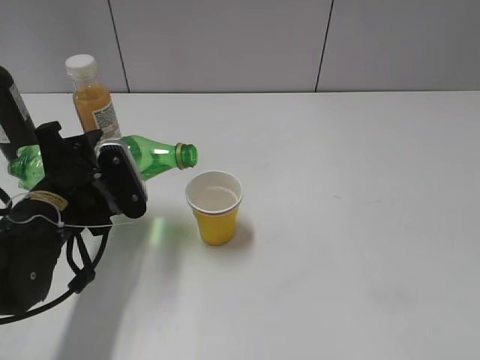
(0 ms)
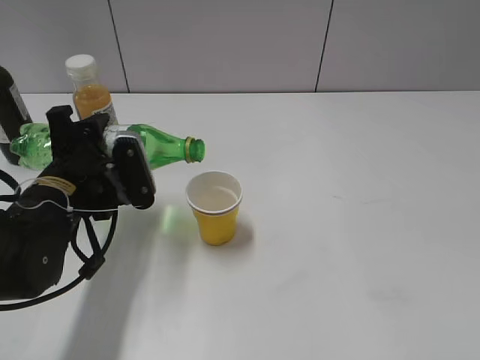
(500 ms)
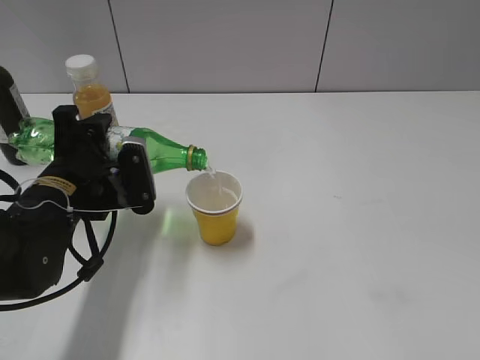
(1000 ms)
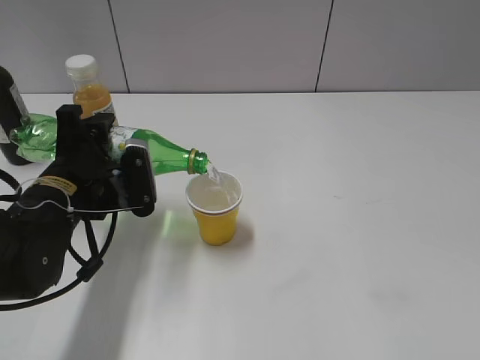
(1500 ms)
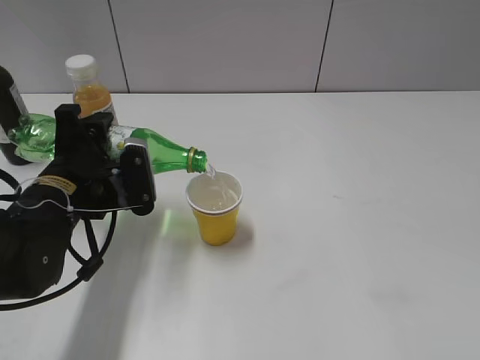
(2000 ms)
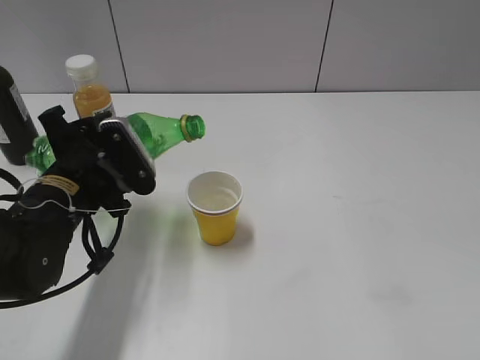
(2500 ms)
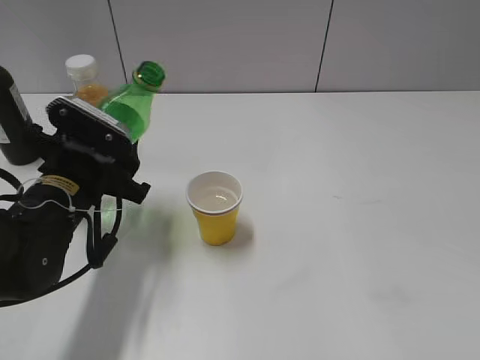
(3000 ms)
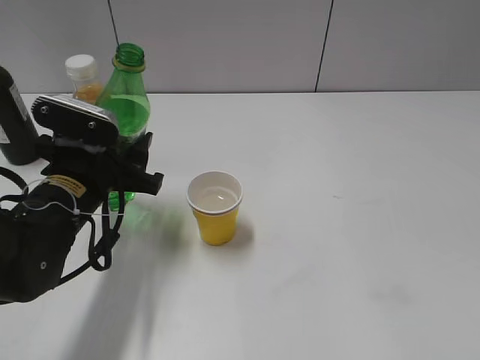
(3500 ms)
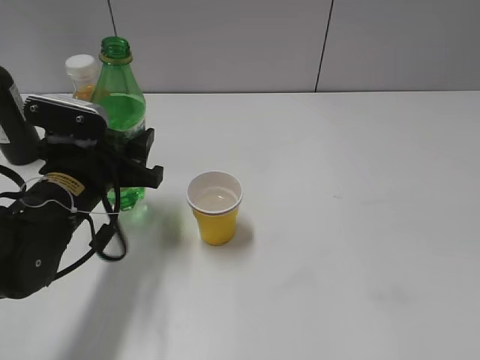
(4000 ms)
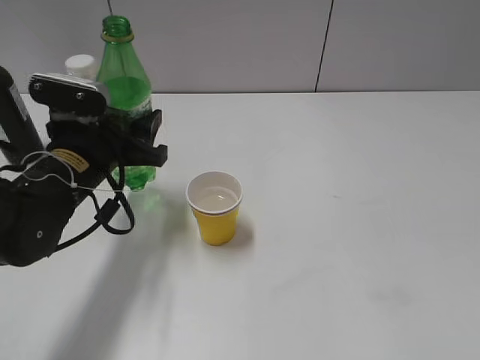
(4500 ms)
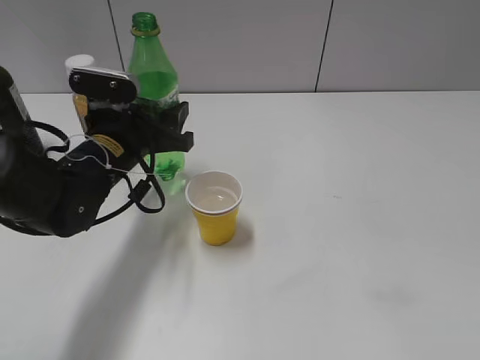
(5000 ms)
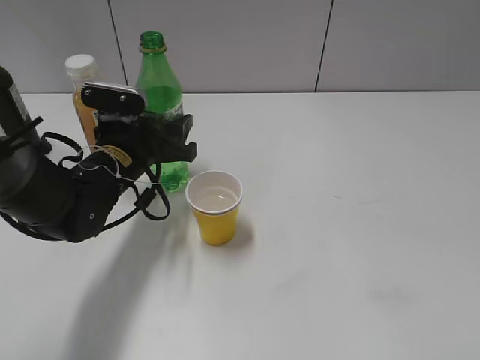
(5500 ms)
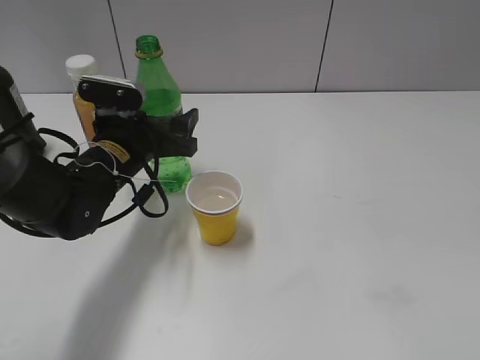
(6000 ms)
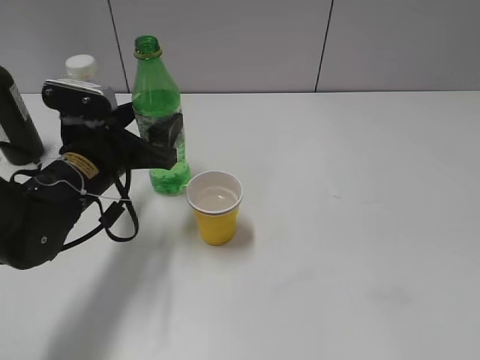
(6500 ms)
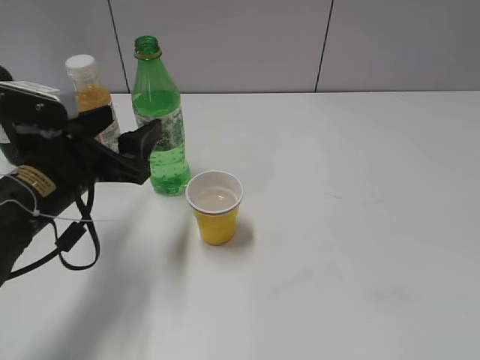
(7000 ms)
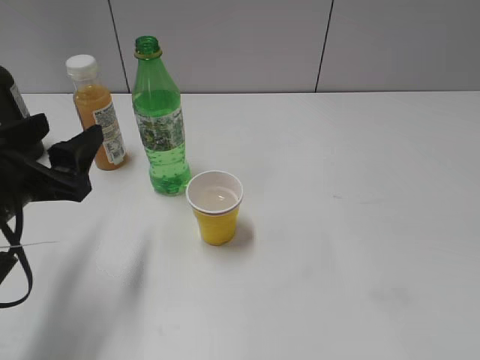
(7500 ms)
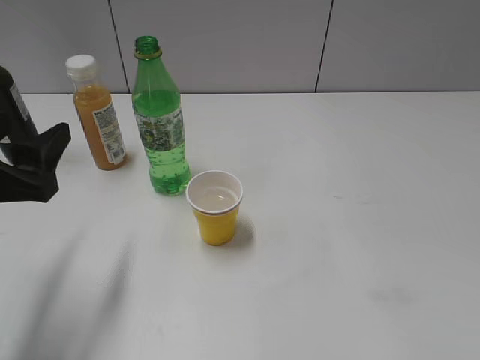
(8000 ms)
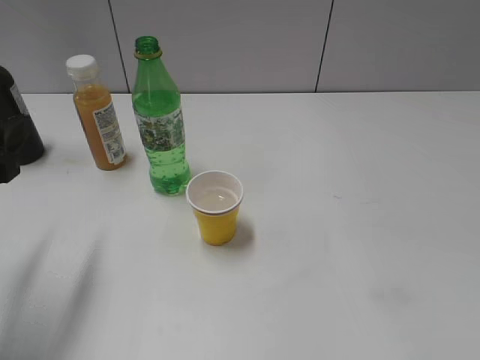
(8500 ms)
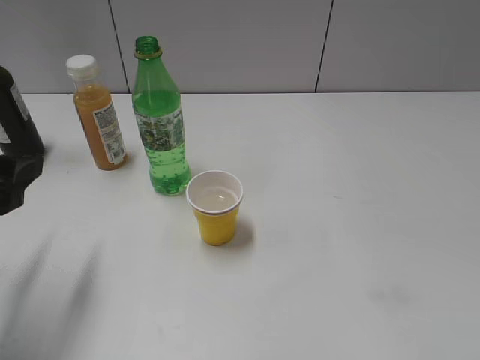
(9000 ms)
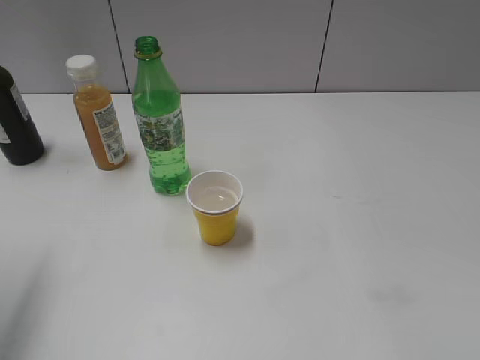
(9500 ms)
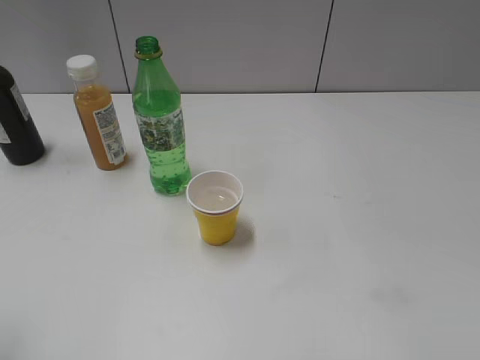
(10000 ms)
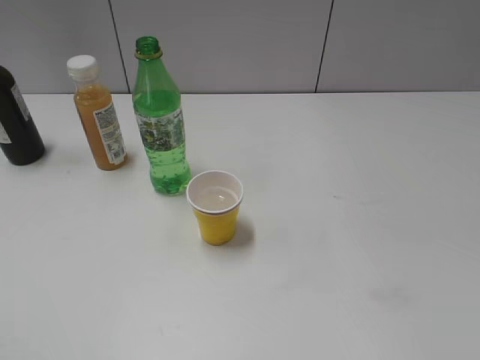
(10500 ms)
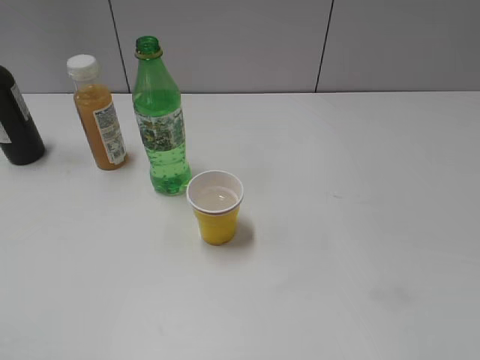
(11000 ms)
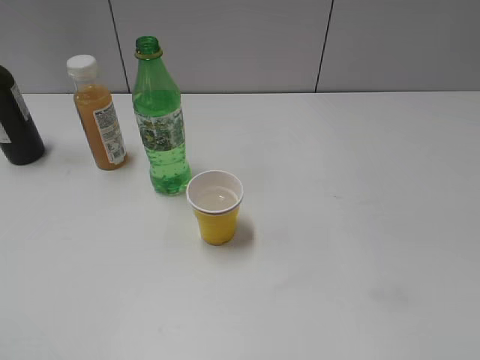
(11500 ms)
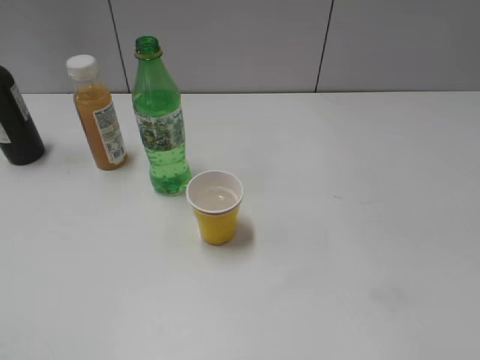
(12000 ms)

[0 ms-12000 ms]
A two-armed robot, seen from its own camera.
Step, 0 ms to 2500 ms: Pour the sprite from bottle to cup with left gripper.
Step, 3000 ms to 6500 ms: Place the sprite bottle on the table with left gripper.
0 ms to 2000 ms: The grippers move only a little.
4000 ms to 6000 ms: The left gripper heads forward, covering about 5 cm, and opens.
6000 ms to 8000 ms: The left gripper heads backward, to the left and upward, covering some 20 cm.
8000 ms to 10000 ms: The left gripper heads upward, backward and to the left, covering about 15 cm.

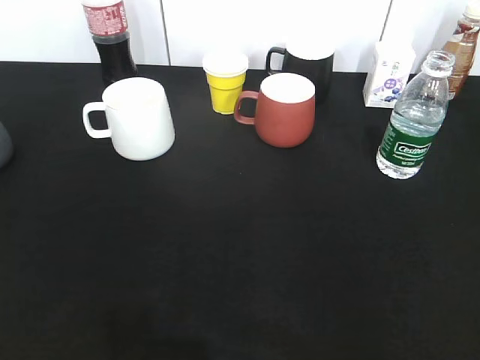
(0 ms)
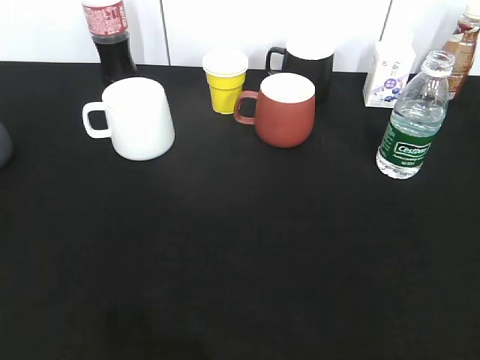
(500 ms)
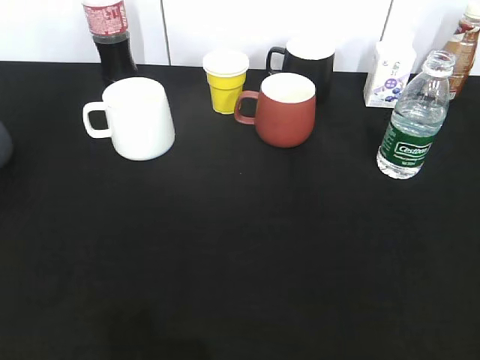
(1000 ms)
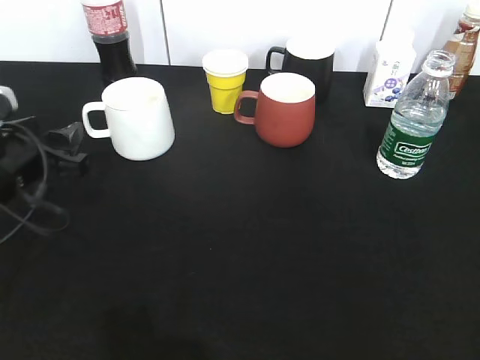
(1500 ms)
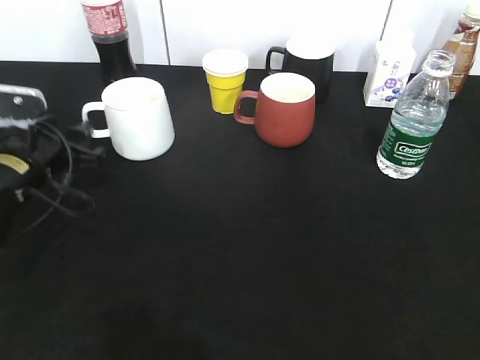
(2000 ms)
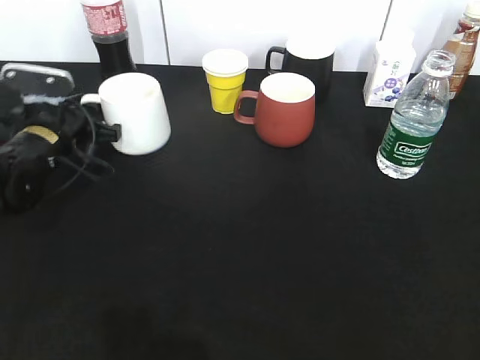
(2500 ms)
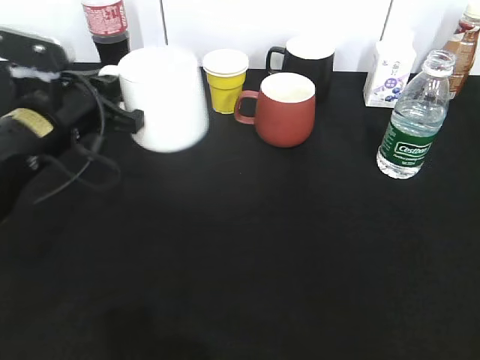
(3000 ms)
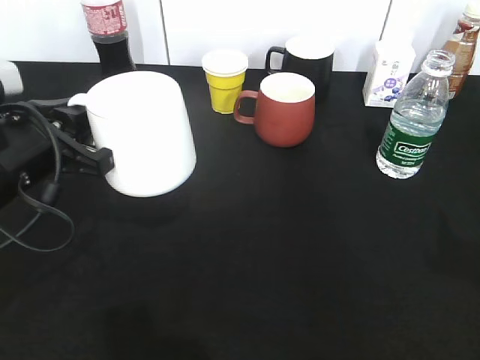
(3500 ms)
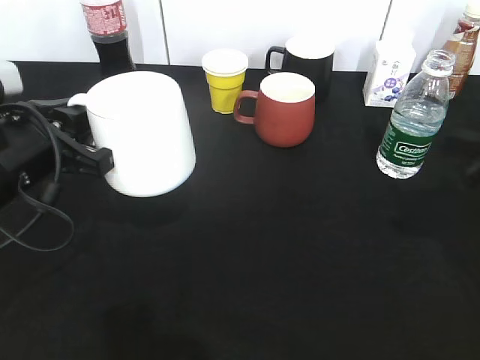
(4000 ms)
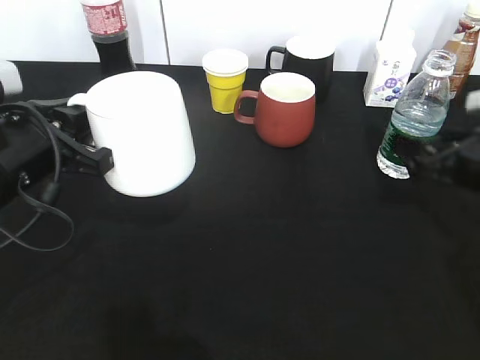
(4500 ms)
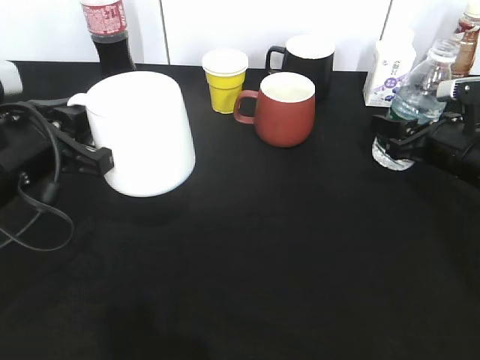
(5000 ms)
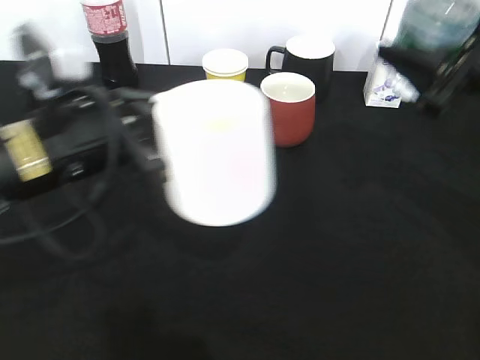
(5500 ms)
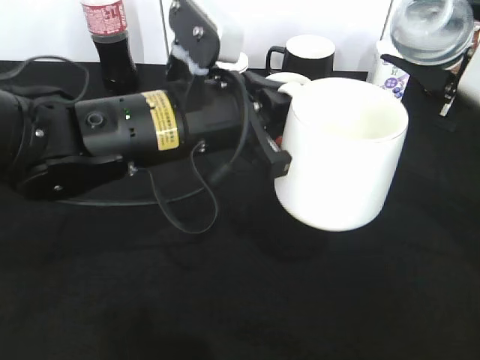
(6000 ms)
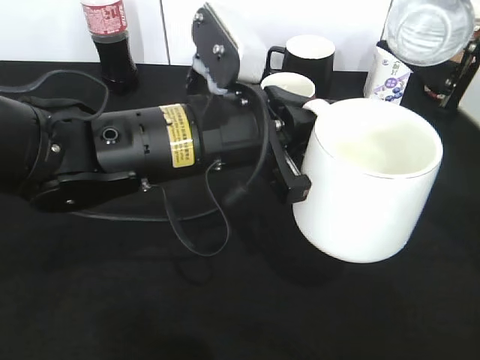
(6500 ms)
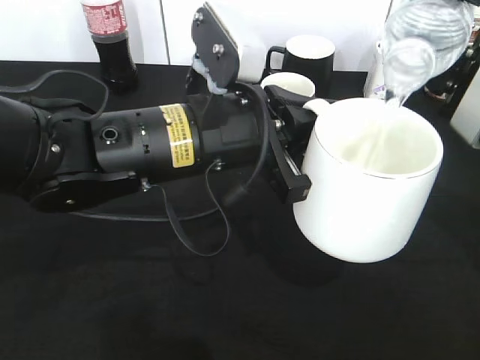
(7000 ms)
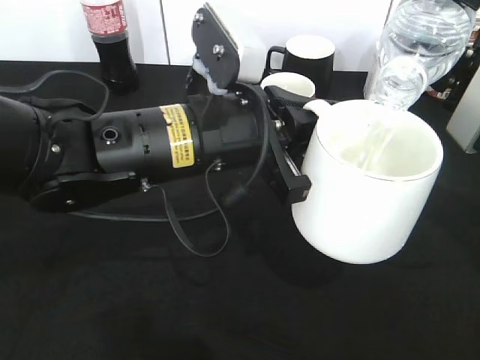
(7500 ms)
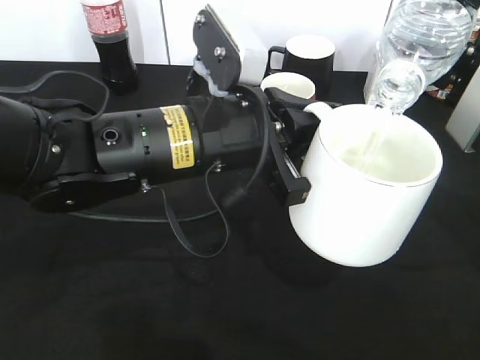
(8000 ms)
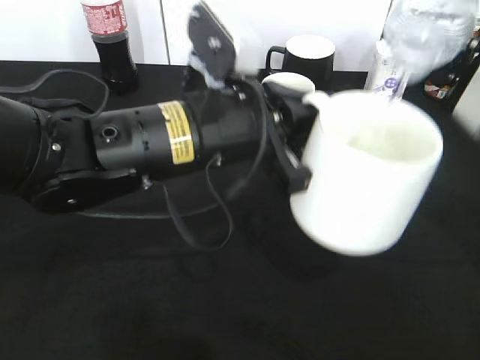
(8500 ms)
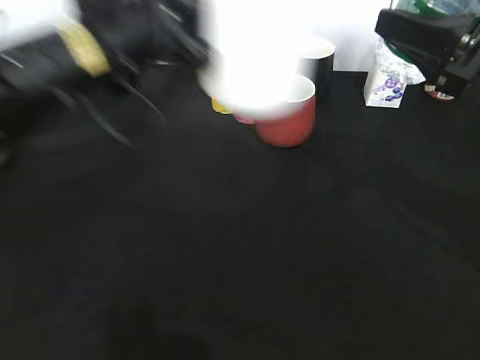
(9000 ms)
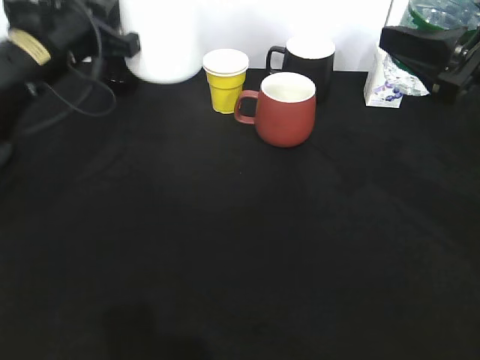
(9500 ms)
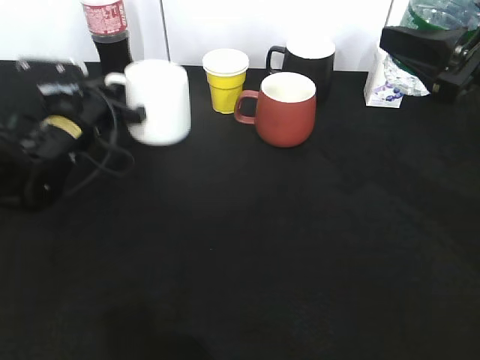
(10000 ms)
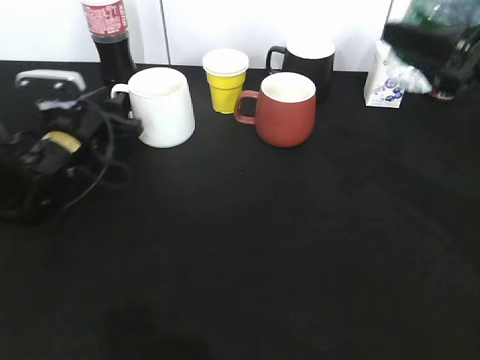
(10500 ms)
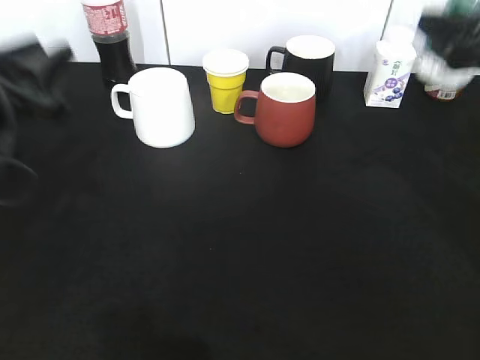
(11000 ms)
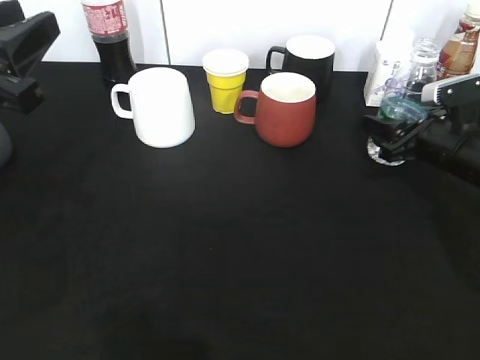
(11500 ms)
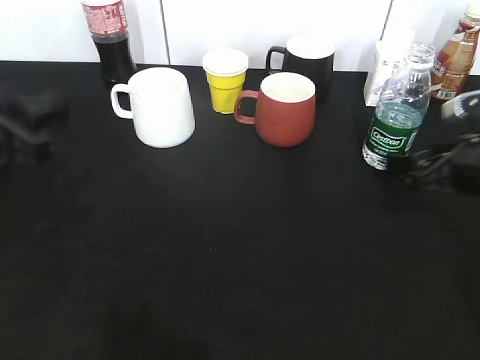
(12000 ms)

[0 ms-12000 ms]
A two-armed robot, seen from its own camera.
Step, 0 ms to 2500 ms: Grasp the white cup with left gripper.
Step, 3500 ms to 4500 ms: Grasp the bottle with water with right gripper.
Step, 5000 ms to 8500 ms: Pour the water from bottle to cup with right gripper.
Step, 9000 ms to 10500 ms: Place the white cup on the table with left gripper.
Step, 11000 ms to 11500 ms: Place the water bottle on the table with right gripper.
0 ms to 2000 ms: The left gripper heads forward and downward, covering some 35 cm, and opens up.
2000 ms to 4000 ms: The right gripper travels forward and downward by some 25 cm, while the left gripper is displaced backward and upward by about 10 cm, and closes.
4000 ms to 6000 ms: The left gripper goes roughly 15 cm to the right. The right gripper travels upward and forward by approximately 10 cm, and closes.
8000 ms to 10000 ms: The left gripper shifts about 25 cm to the left, forward and downward.
10000 ms to 12000 ms: The left gripper shifts some 20 cm backward and upward, and opens its fingers; the right gripper heads downward, covering roughly 10 cm, and opens.

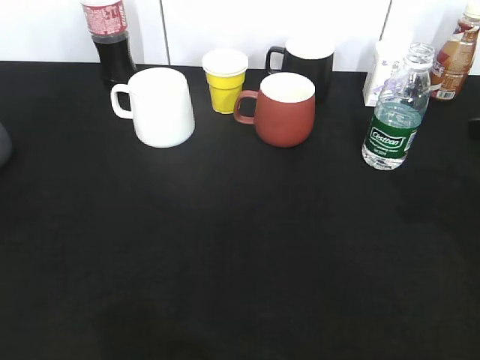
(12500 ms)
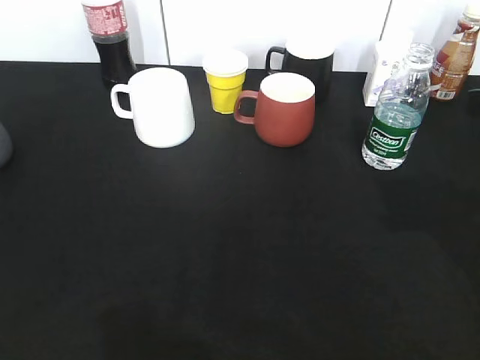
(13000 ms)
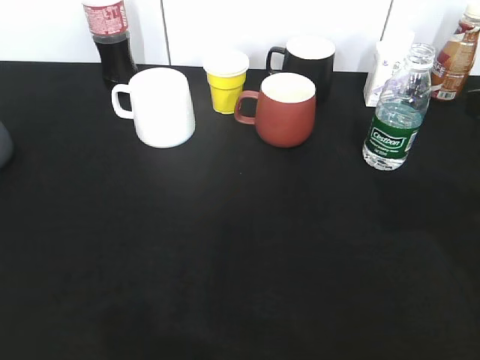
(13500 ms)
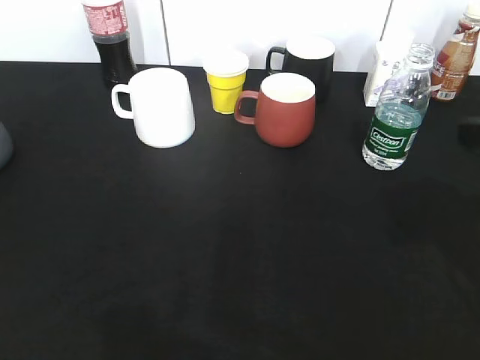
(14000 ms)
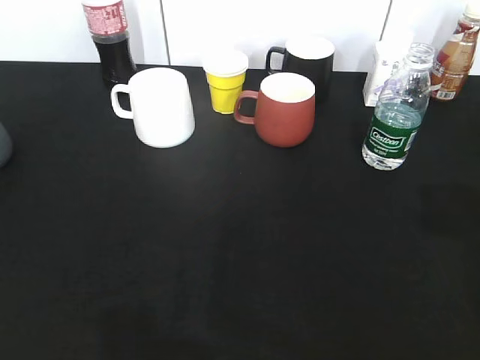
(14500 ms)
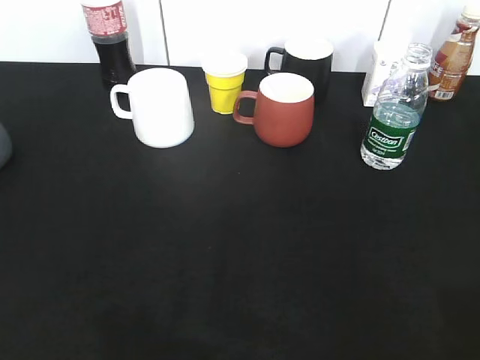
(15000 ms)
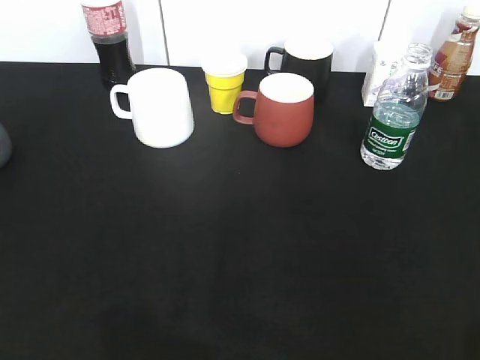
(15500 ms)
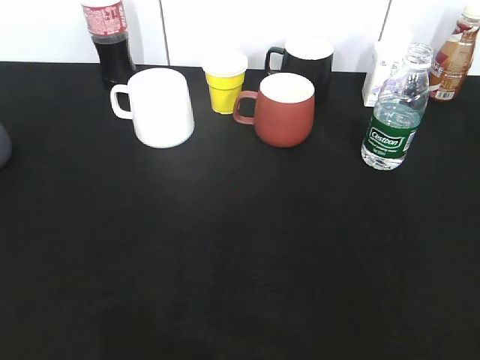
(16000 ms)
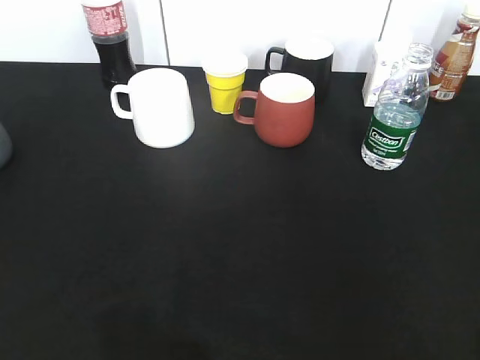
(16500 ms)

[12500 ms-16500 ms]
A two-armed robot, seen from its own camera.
14500 ms to 16500 ms: The right gripper moves backward, about 20 cm.
